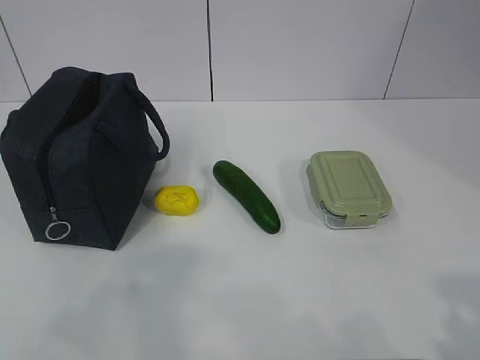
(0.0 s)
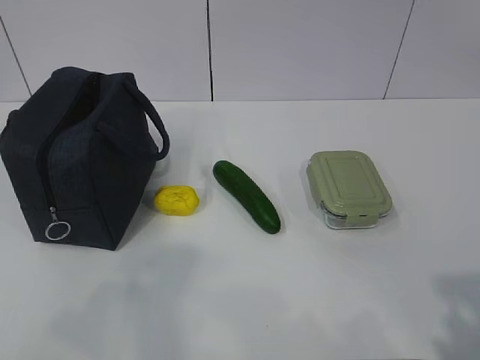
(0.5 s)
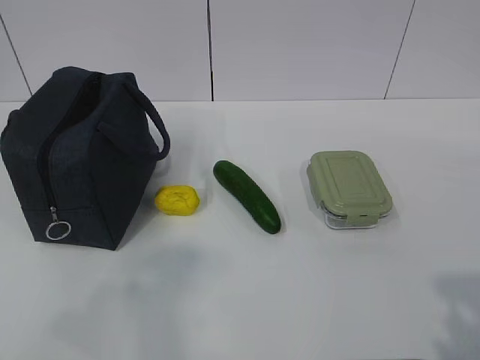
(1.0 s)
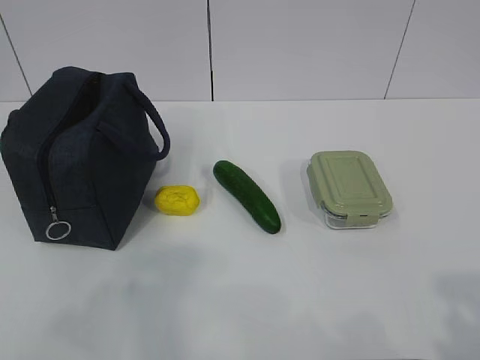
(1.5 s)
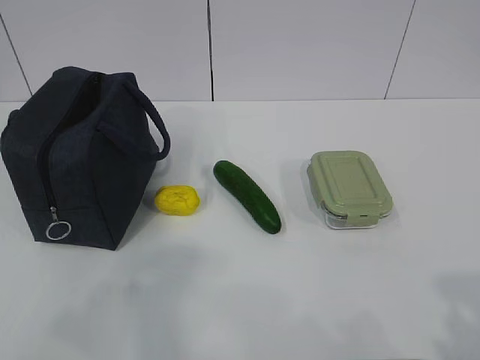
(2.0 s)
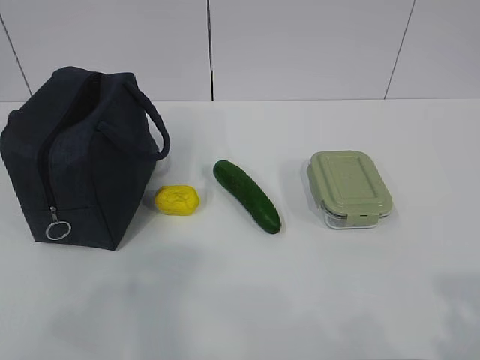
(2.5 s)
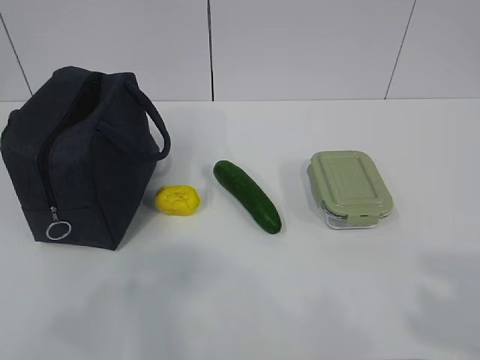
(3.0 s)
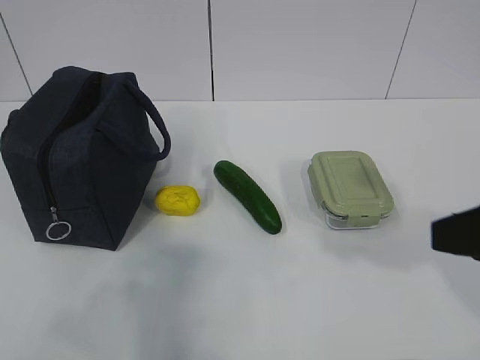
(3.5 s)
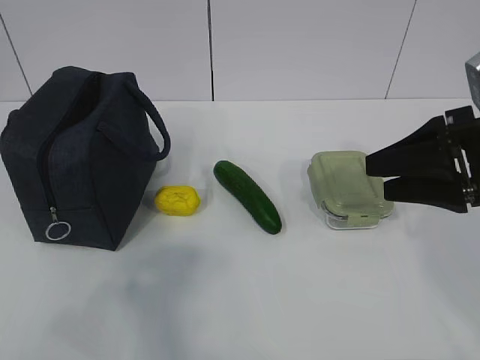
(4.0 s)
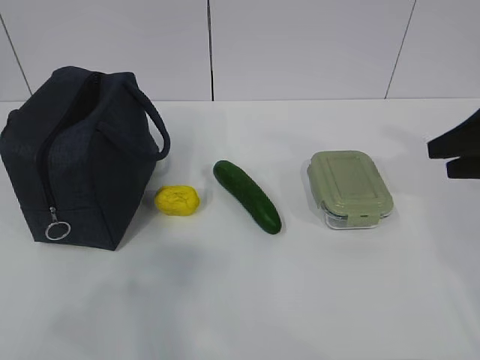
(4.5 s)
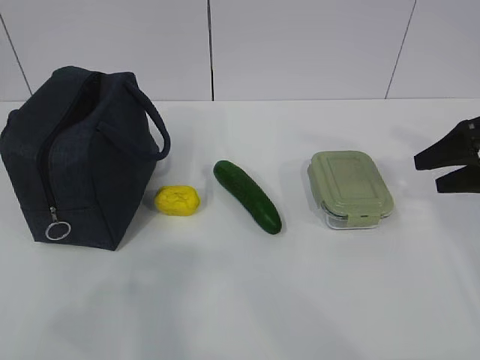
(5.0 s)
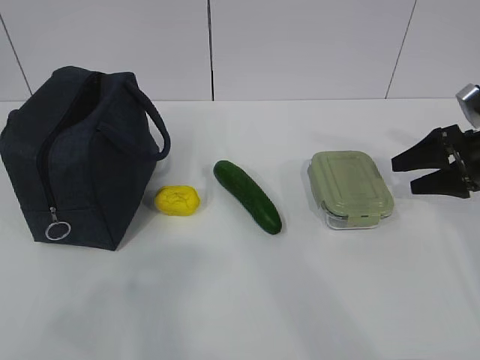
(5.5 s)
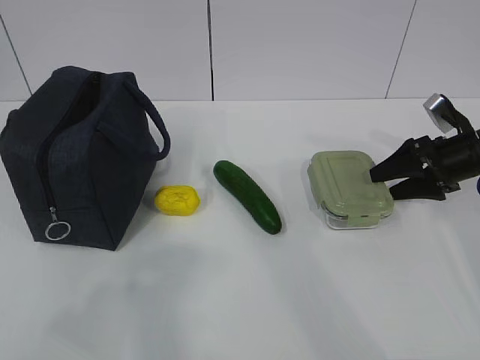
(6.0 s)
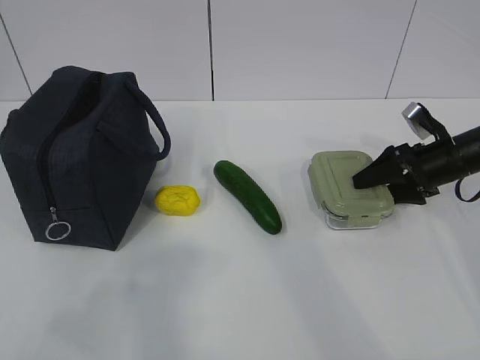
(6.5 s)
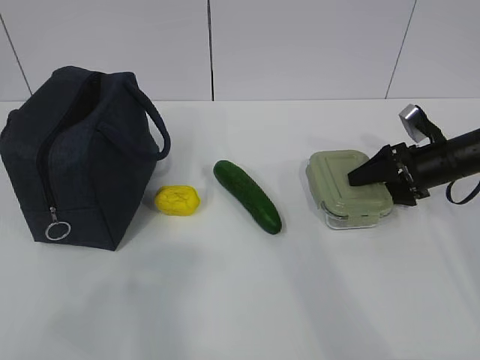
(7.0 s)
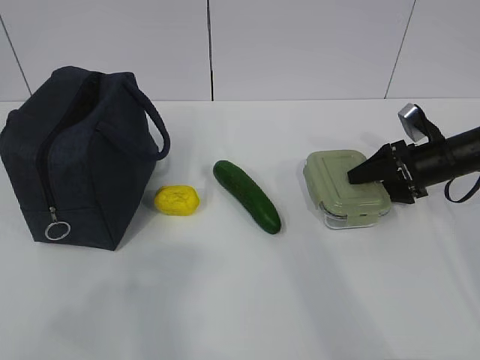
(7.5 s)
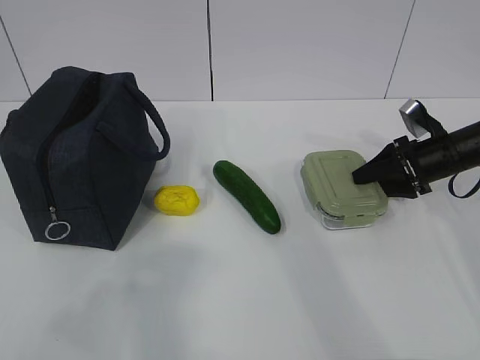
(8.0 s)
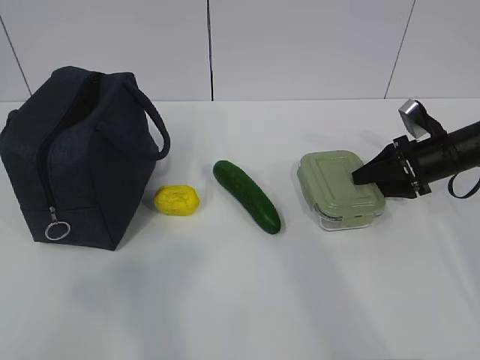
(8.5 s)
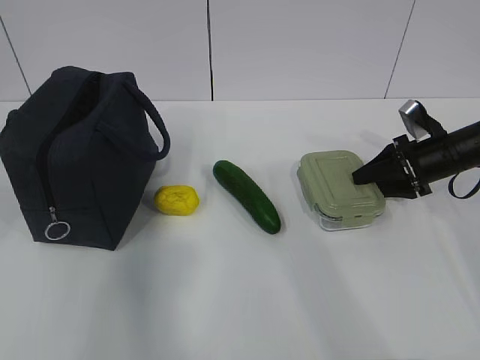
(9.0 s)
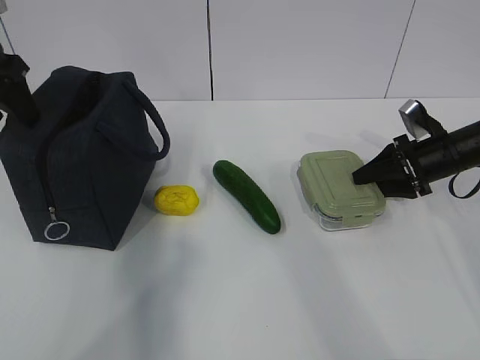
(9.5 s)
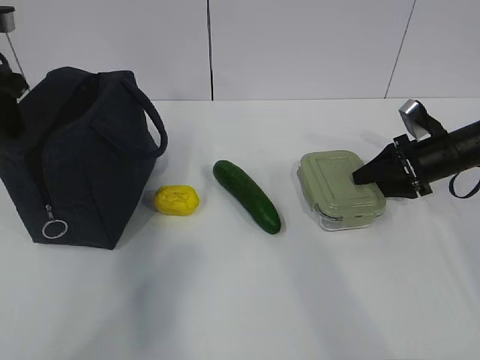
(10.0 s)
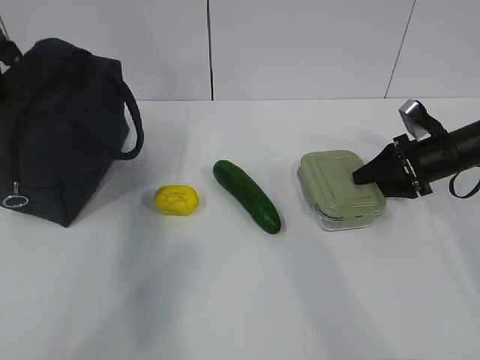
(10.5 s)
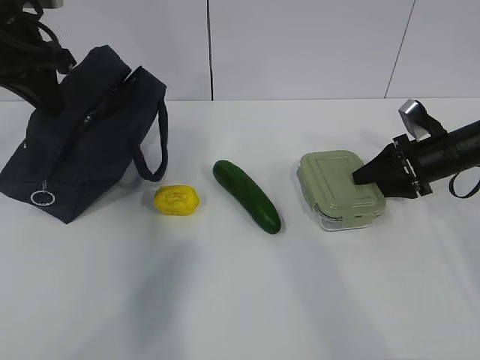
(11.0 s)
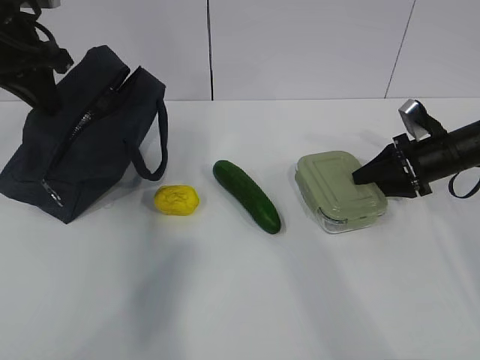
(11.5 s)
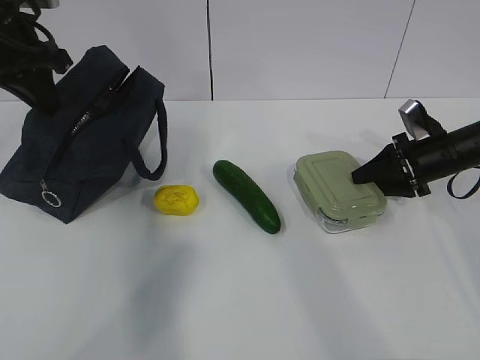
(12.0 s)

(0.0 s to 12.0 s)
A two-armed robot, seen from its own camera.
Step, 0.0 s - 11.0 s: Grab the lunch box with your right hand.
2.0 s - 4.0 s: The right gripper travels forward by about 25 cm.
4.0 s - 6.0 s: The right gripper travels forward, downward and to the right by some 20 cm.
6.0 s - 8.0 s: The grippers make only small movements.
8.0 s - 10.0 s: The left gripper heads forward, covering about 40 cm.
10.0 s - 12.0 s: The left gripper is displaced to the right by some 5 cm, and closes.

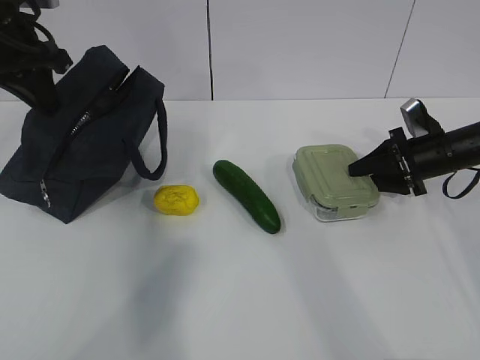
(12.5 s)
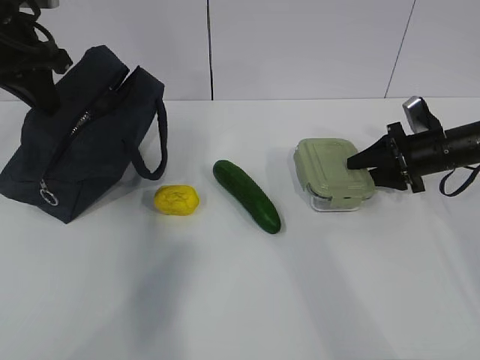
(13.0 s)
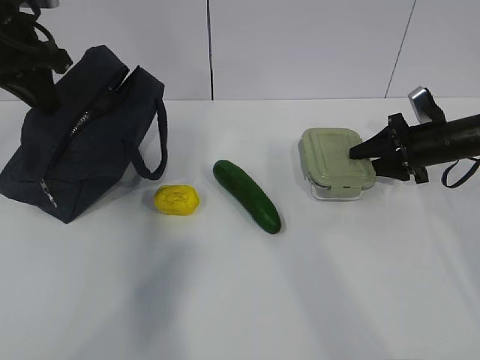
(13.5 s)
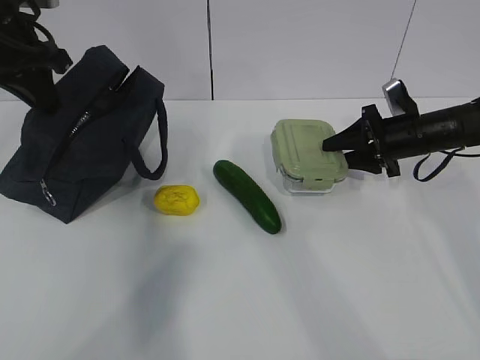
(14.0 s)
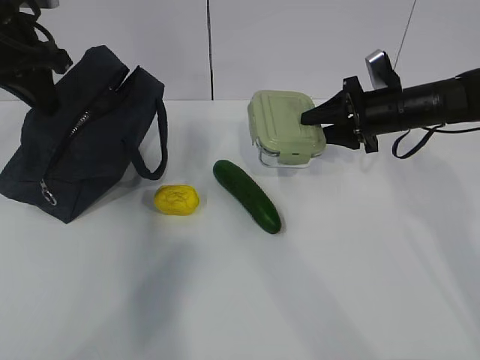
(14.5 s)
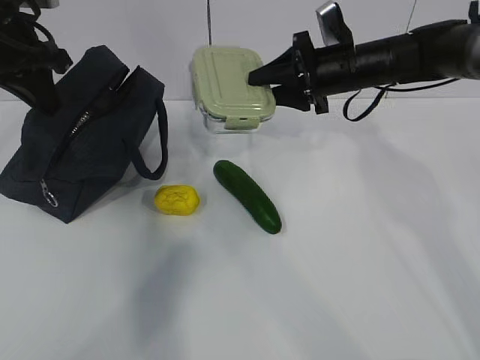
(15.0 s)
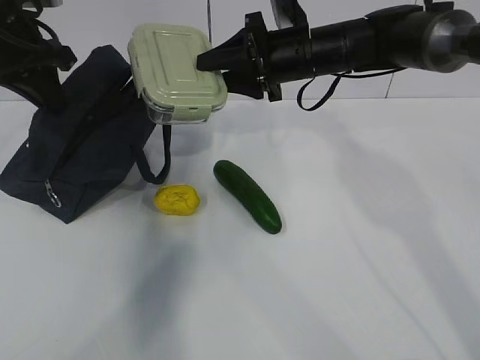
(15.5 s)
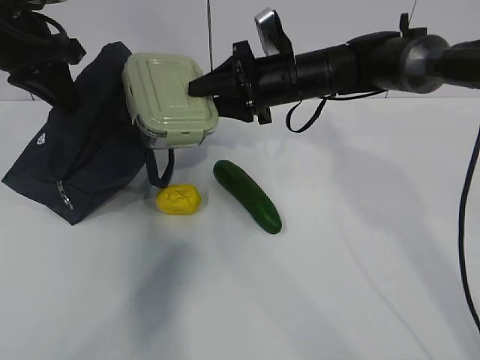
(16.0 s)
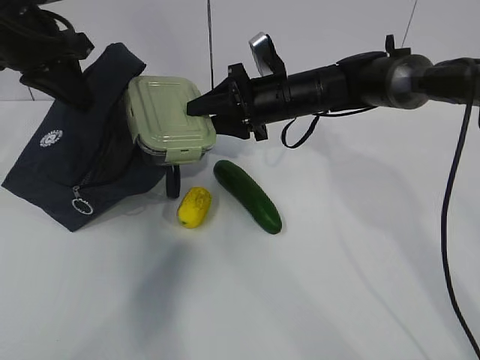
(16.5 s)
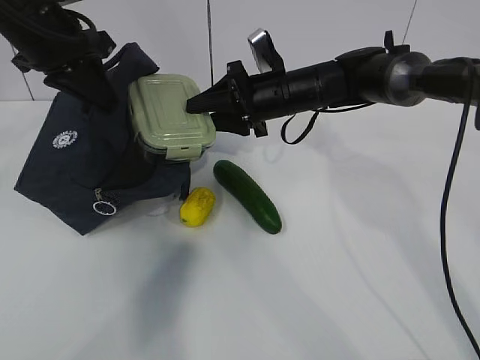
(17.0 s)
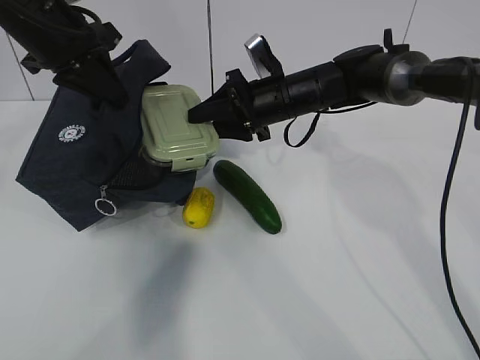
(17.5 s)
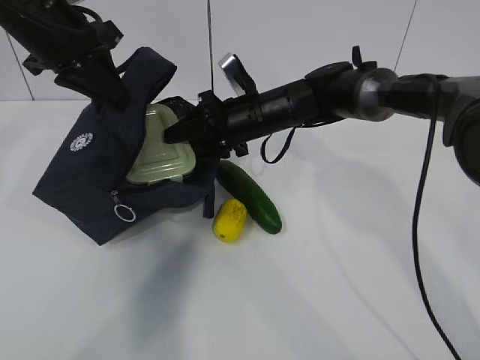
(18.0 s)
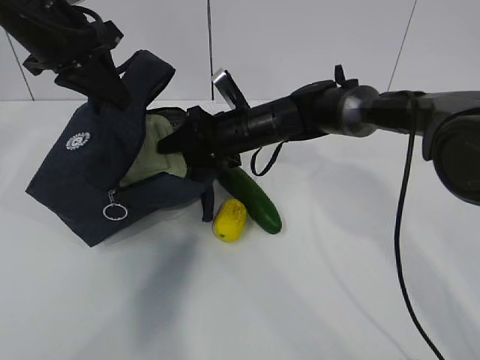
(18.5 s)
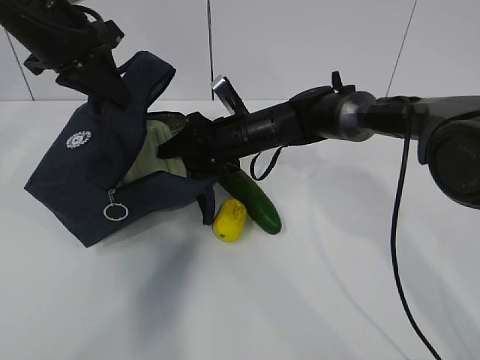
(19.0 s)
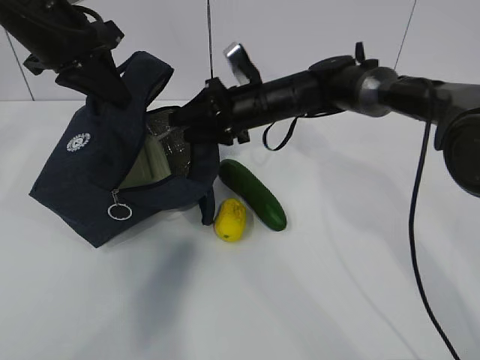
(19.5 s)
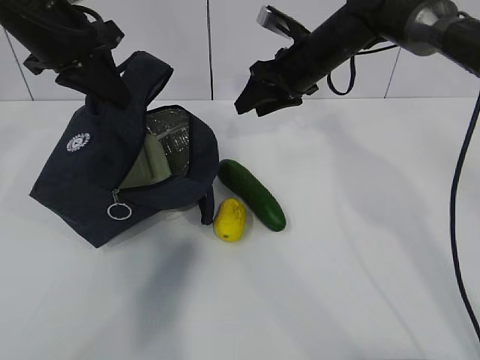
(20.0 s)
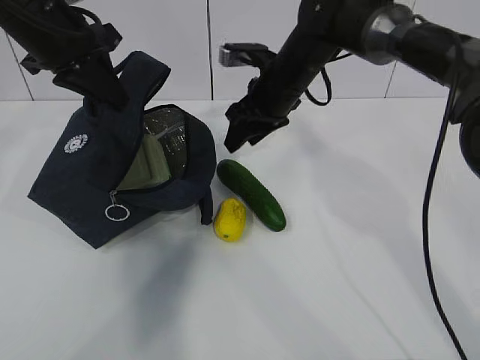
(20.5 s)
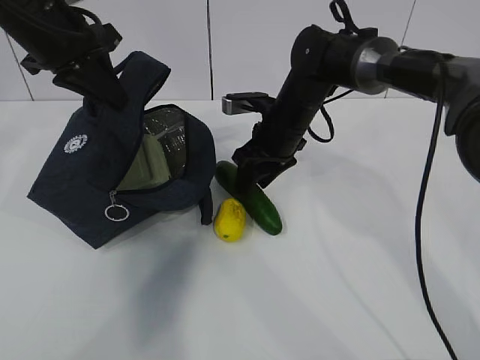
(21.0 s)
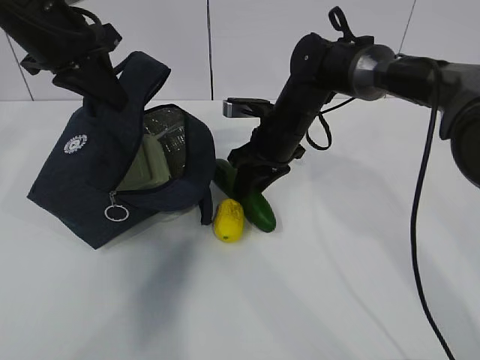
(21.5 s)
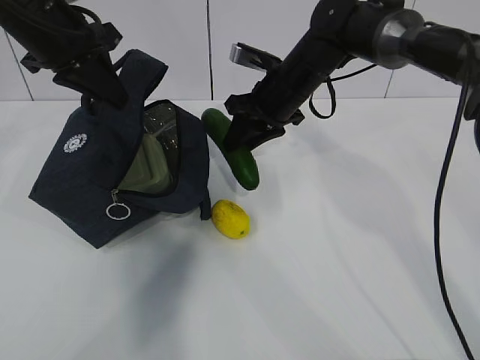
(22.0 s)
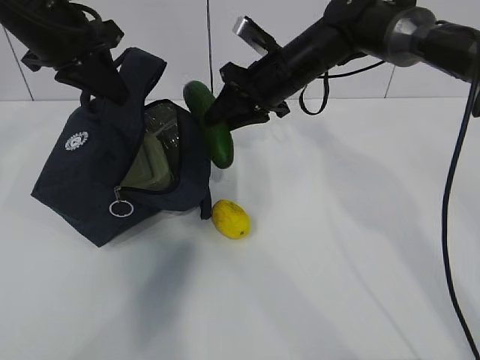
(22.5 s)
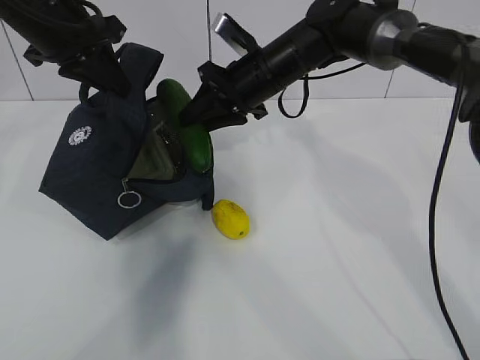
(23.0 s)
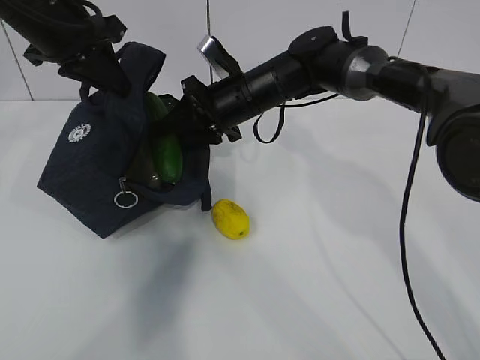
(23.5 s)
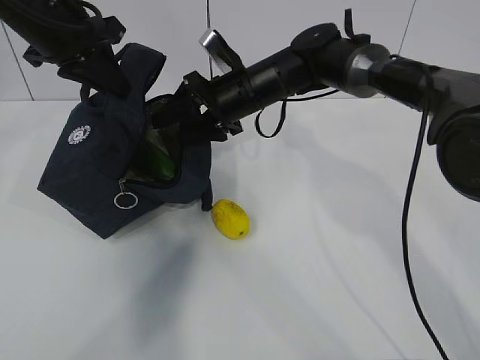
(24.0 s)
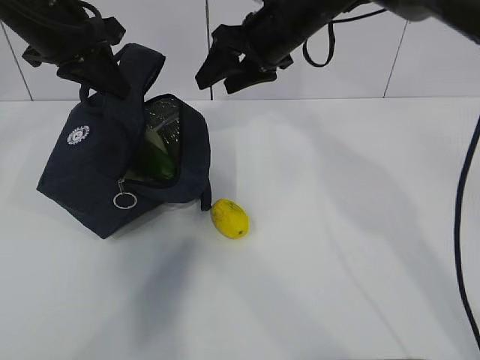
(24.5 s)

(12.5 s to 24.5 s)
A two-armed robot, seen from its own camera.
Step, 13.5 s - 16.0 s: Place it into the bag with your right hand.
Step, 16.5 s - 17.5 s: Grab the cucumber with your right hand.
Step, 18.0 s - 19.5 s: Place it into the bag with your right hand.
Step, 20.5 s - 22.0 s: Grab the lemon with your right hand.
12.5 s - 14.5 s: The right gripper goes about 10 cm to the left and upward.
14.5 s - 16.5 s: The right gripper shifts some 15 cm to the left.
16.5 s - 18.5 s: The right gripper is displaced to the left by about 5 cm.
18.5 s - 20.5 s: The right gripper heads upward, covering about 5 cm.
22.5 s - 24.5 s: The right gripper shifts about 5 cm upward, and opens up.

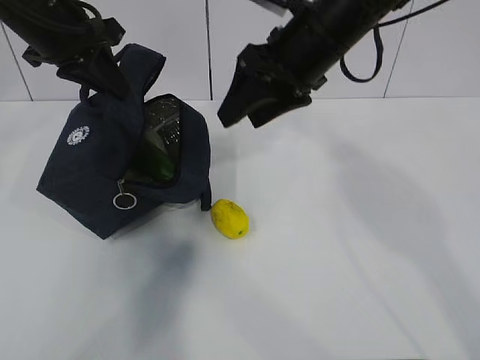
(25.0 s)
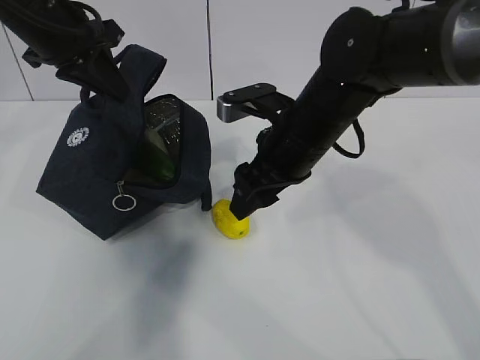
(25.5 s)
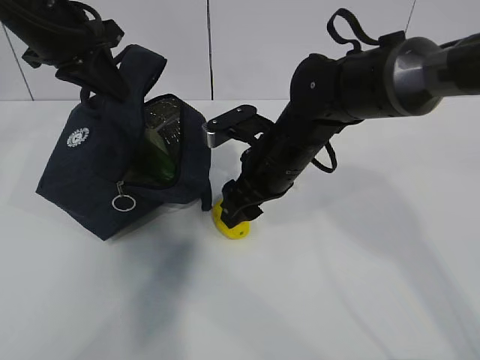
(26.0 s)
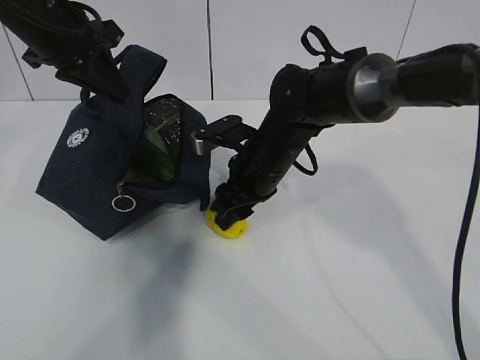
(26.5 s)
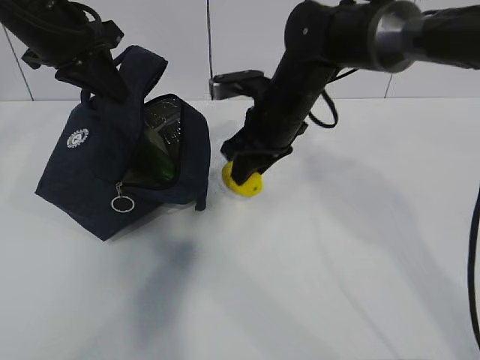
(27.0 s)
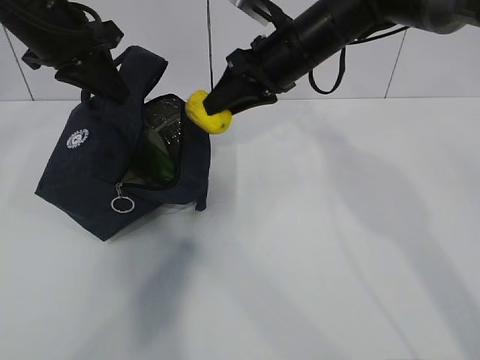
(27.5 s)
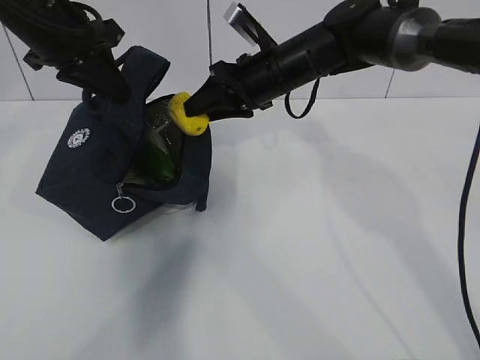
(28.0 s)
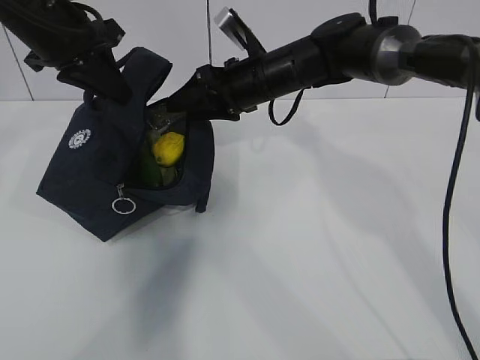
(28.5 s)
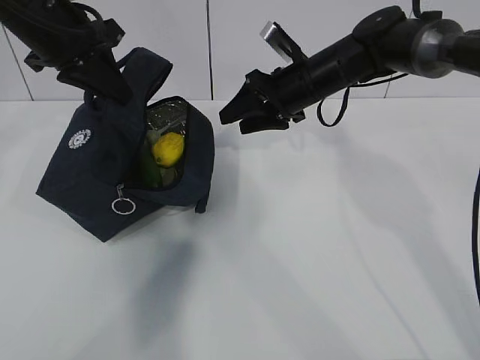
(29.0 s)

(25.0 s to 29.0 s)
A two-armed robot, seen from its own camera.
Step, 25.0 s - 26.0 s: Stand the lunch bag upright with your right hand.
25.0 s - 27.0 s: The right gripper moves downward, about 10 cm.
27.0 s - 29.0 s: The right gripper goes some 5 cm forward.
